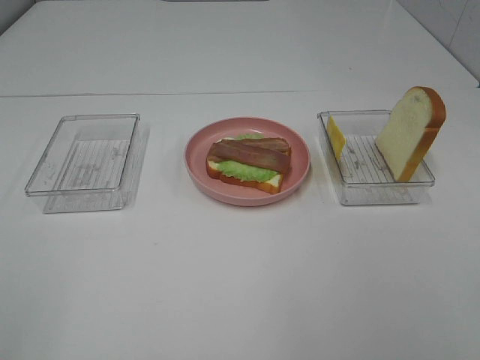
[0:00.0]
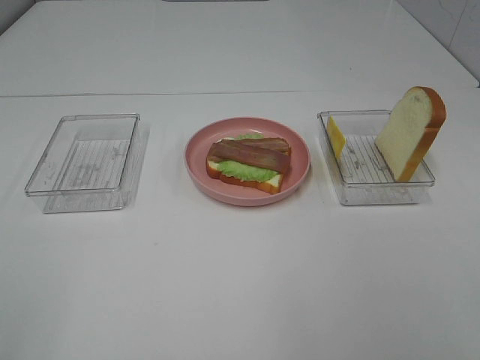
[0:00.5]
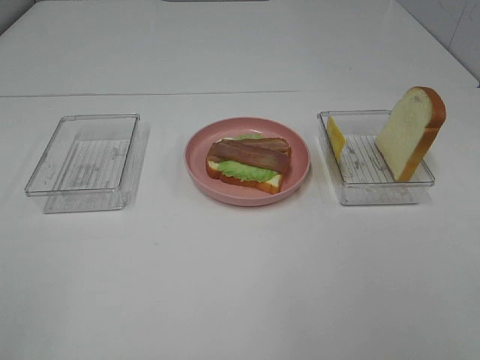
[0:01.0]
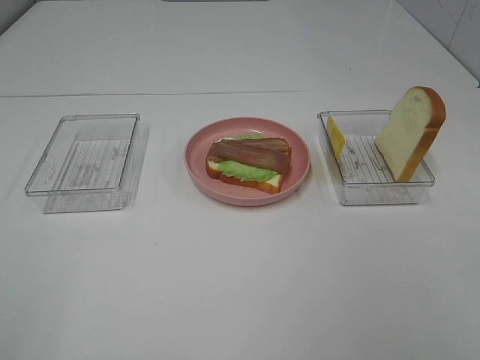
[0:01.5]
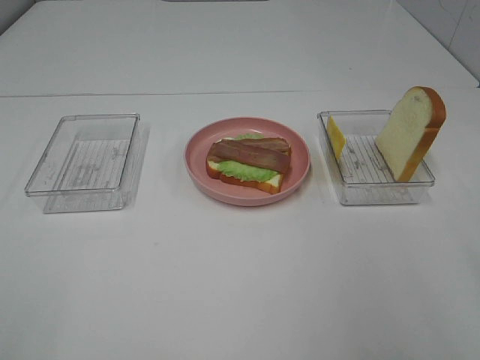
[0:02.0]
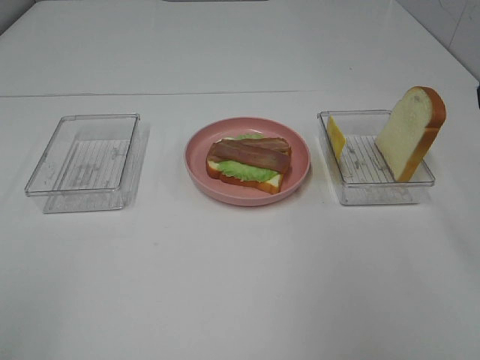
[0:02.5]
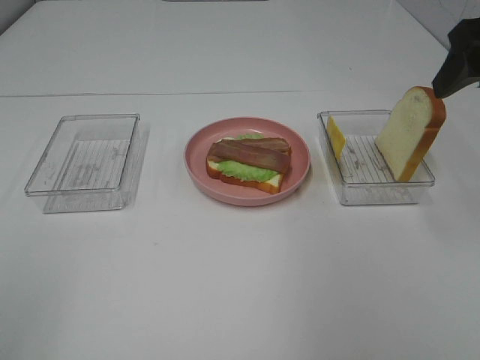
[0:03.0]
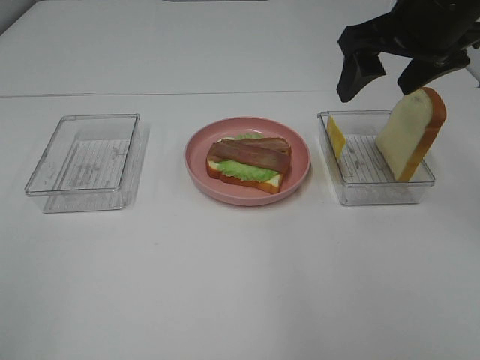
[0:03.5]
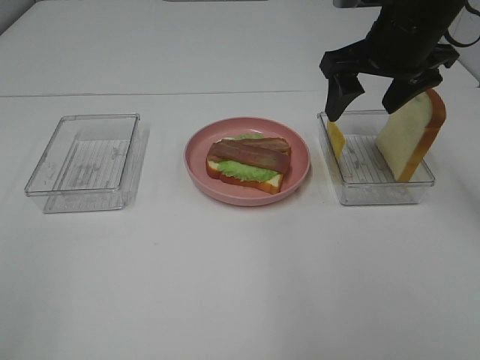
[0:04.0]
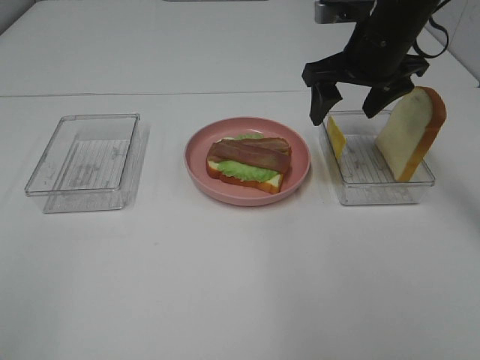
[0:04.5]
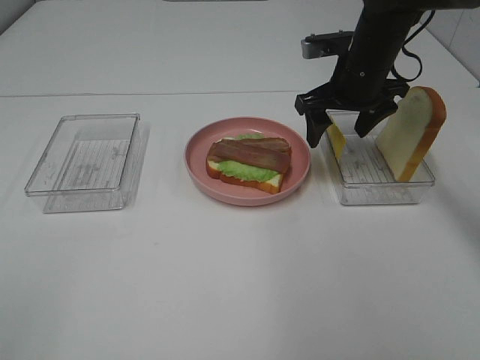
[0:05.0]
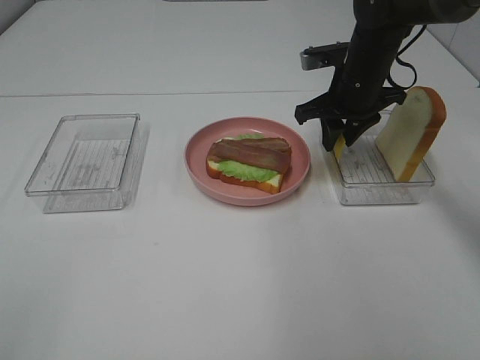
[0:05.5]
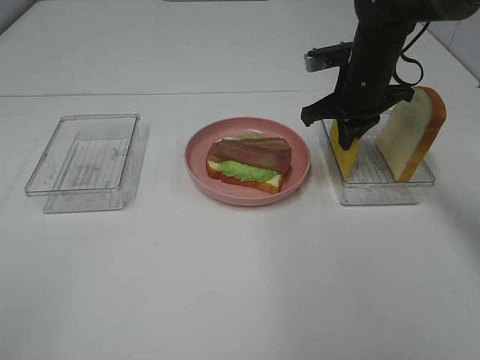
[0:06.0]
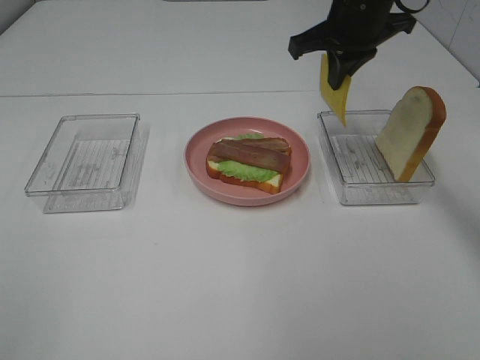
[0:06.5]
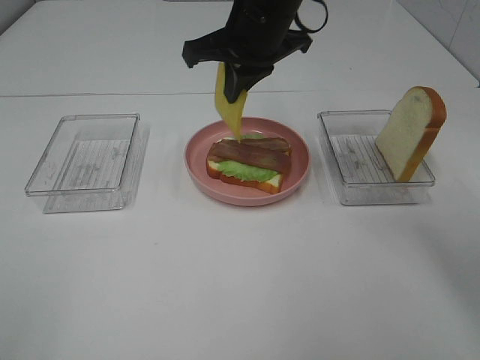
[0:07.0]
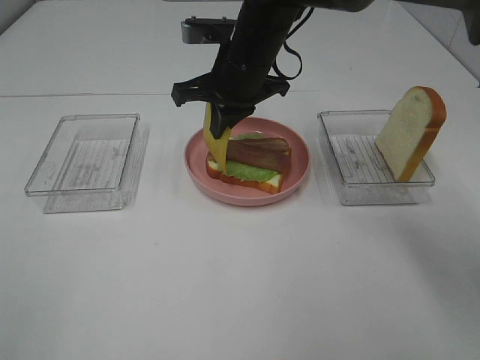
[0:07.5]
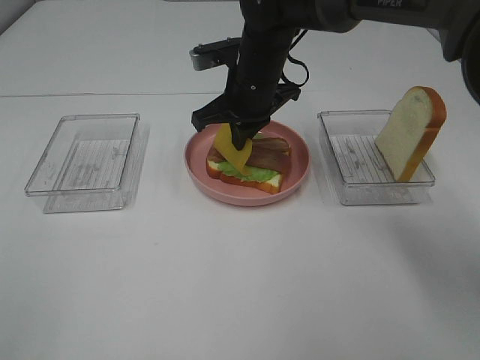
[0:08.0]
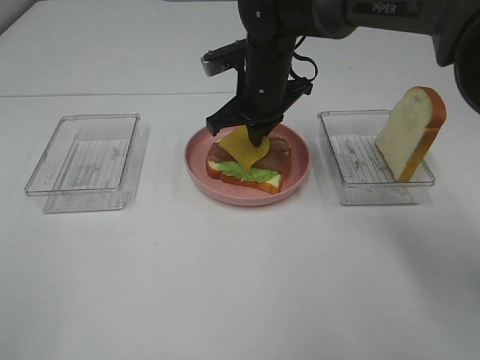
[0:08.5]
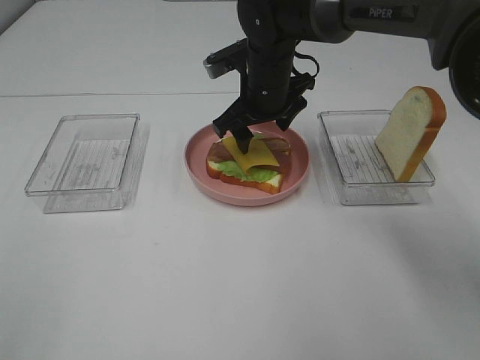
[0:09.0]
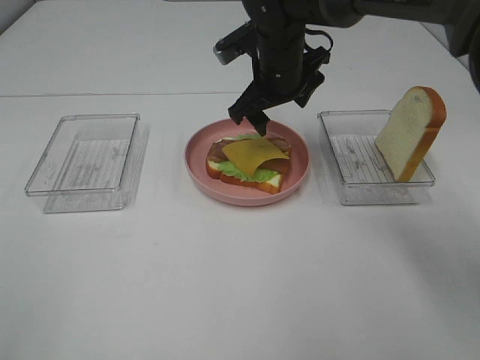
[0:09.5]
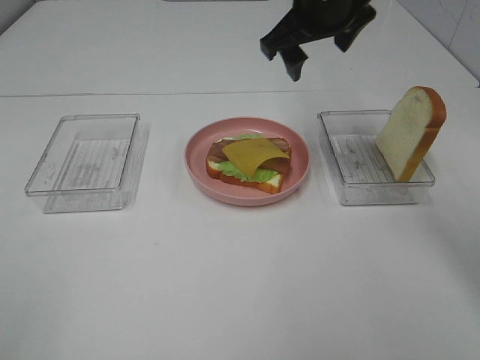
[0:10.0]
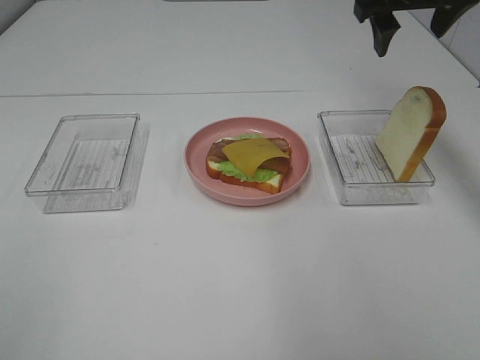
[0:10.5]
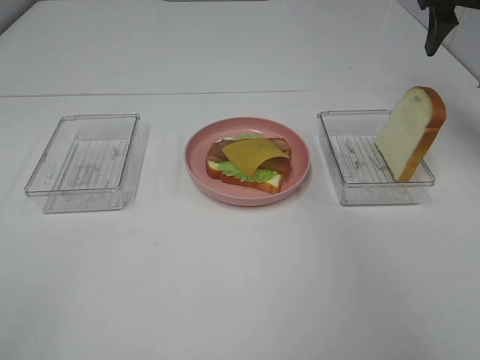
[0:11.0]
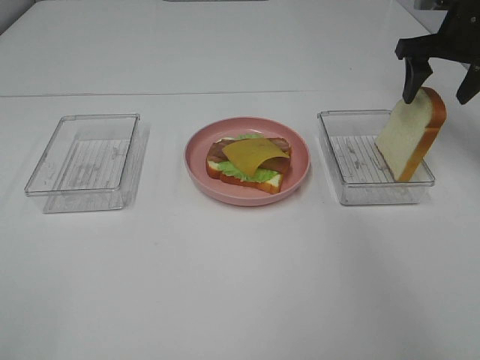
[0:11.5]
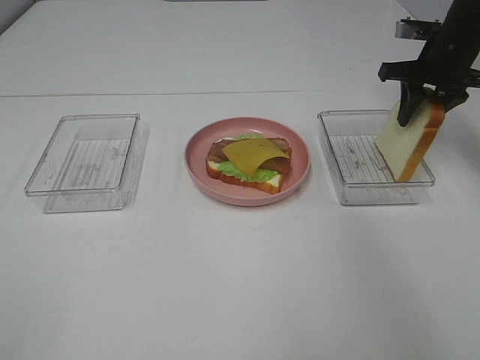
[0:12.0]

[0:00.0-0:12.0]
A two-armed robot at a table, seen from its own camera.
Task of the whole recording: Make sandwiches.
Step, 0:00.0 to 0:06.0: Right hand:grab the cheese slice.
Step, 0:06.5 to 0:09.5: Right hand:place the cheese slice on top of the bacon.
Step, 0:10.0 to 0:12.0: Right hand:grab the bread slice.
0:02.0 to 0:04.0: The right gripper heads forward, covering about 25 cm.
0:04.0 to 0:06.0: The right gripper heads downward and forward, covering some 10 cm, and closes.
0:06.0 to 0:08.0: The right gripper travels to the left by some 15 cm.
0:08.0 to 0:10.0: The right gripper travels upward and to the right by approximately 15 cm, and opens up.
0:10.0 to 0:12.0: The right gripper moves to the right and downward, about 20 cm, and closes up.

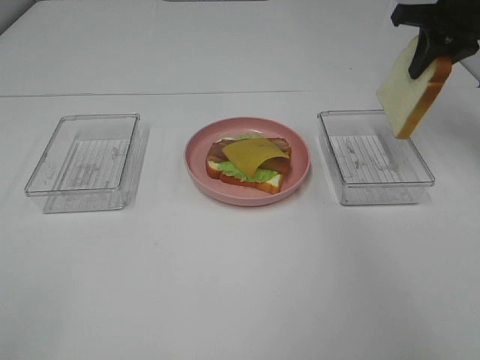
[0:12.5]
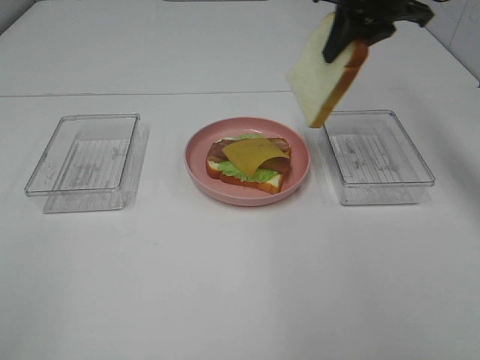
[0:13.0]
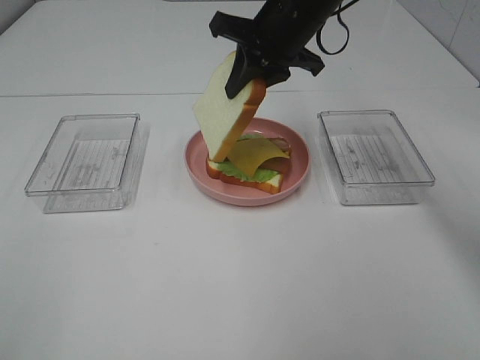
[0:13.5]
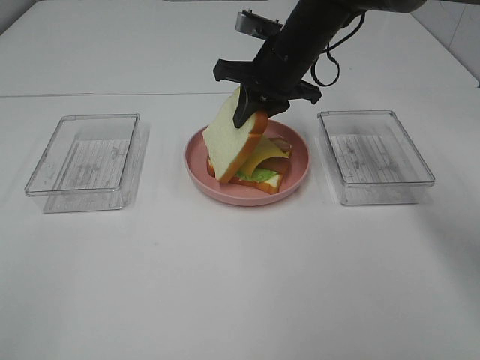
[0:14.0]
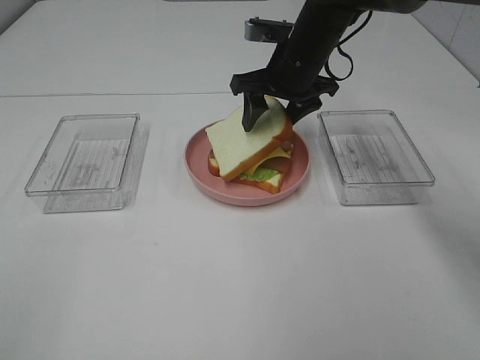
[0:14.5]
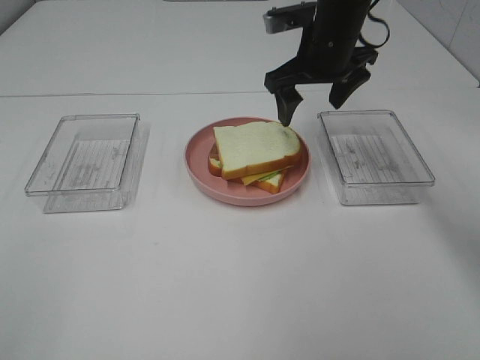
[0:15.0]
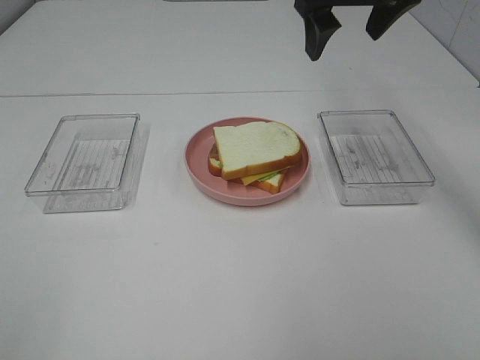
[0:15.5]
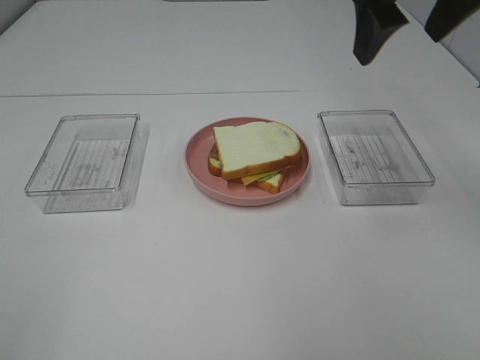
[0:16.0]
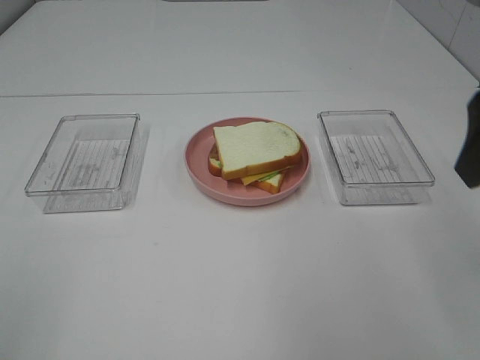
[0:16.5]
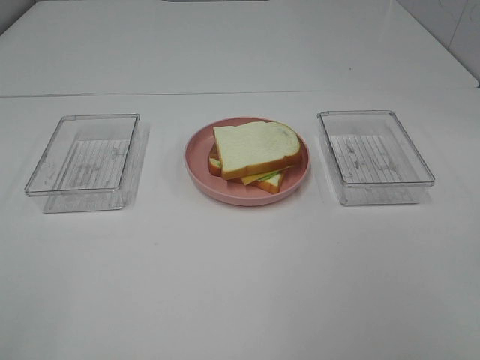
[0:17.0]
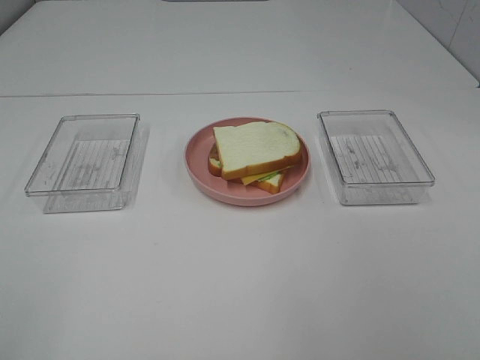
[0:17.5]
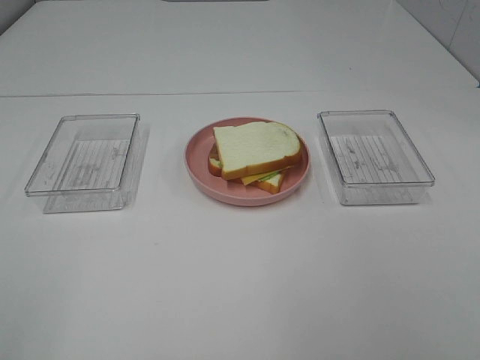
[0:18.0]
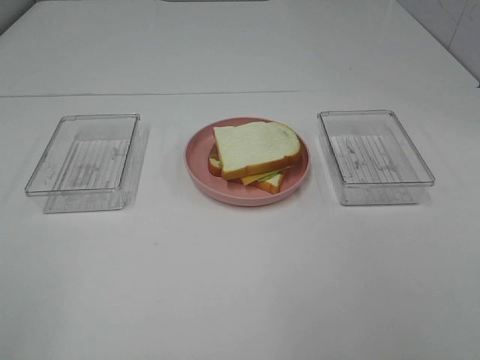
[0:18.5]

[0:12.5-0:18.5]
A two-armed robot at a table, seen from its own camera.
Task of the whole recording: Make sandwiches.
Step, 0:12.5 to 0:15.0: Right hand:place the bread slice on the cheese slice.
0:12.5 to 0:14.5: The right gripper heads to the left and downward, covering roughly 20 cm, and opens up.
0:14.5 to 0:16.5: The right gripper goes approximately 35 cm backward, upward and to the right.
0:16.5 to 0:18.5: The right gripper is displaced backward by approximately 20 cm.

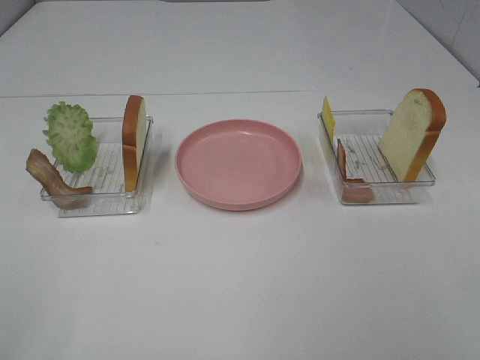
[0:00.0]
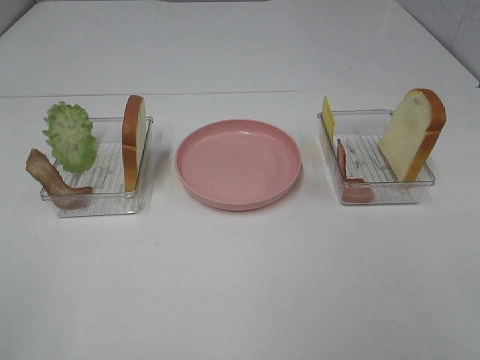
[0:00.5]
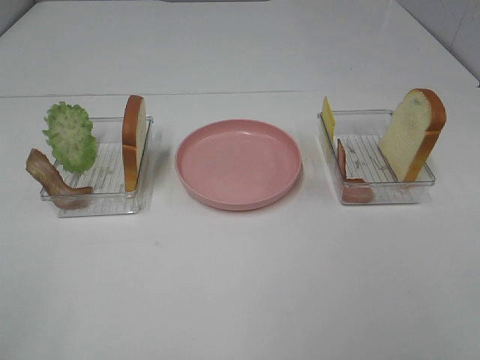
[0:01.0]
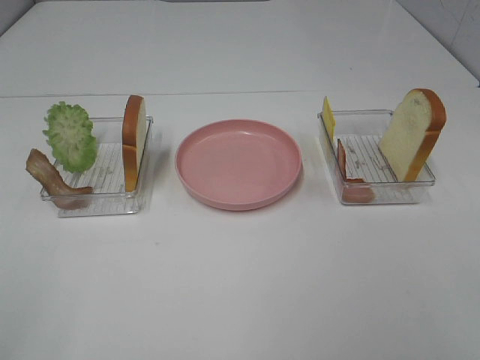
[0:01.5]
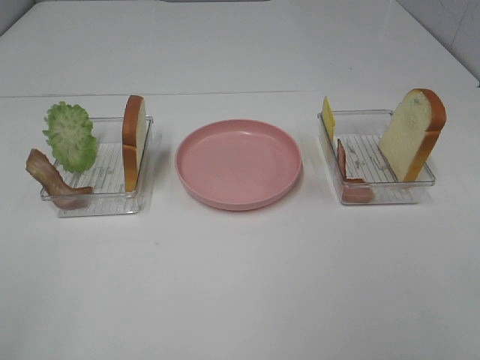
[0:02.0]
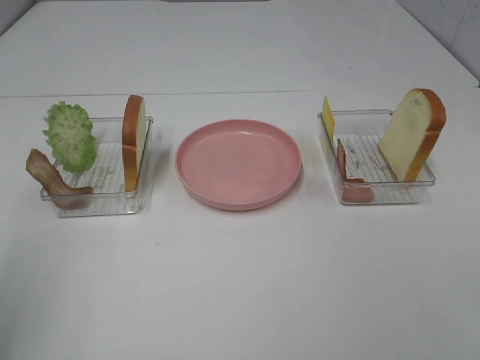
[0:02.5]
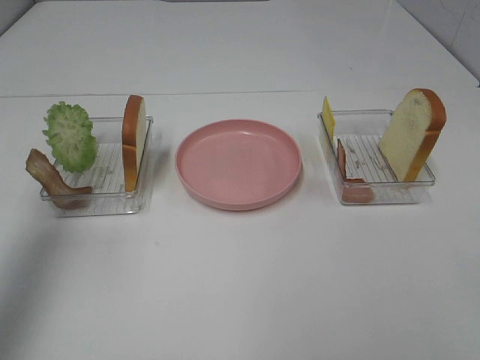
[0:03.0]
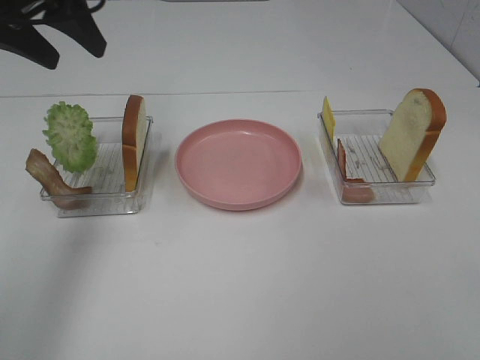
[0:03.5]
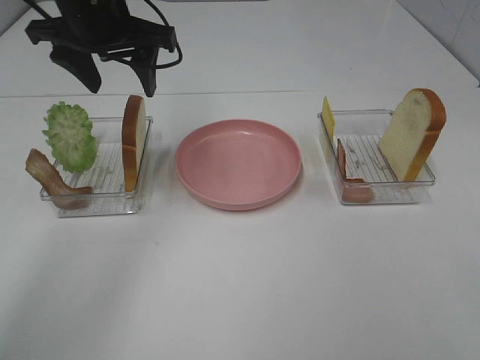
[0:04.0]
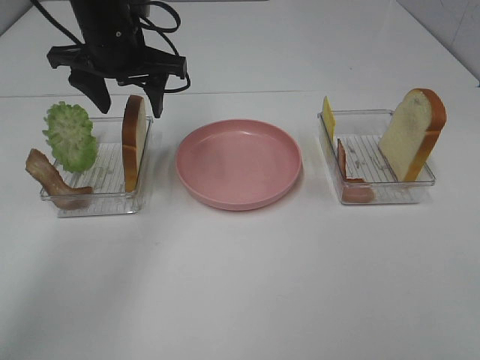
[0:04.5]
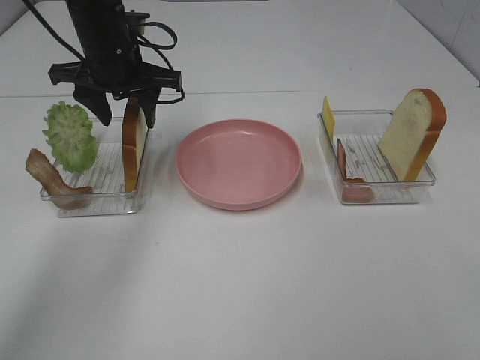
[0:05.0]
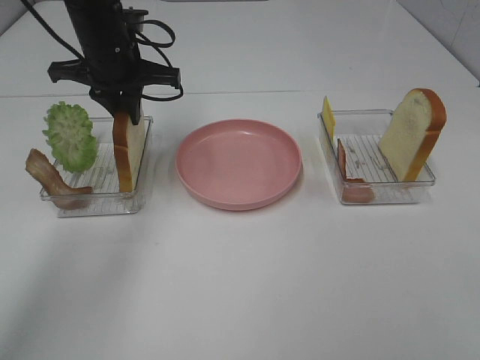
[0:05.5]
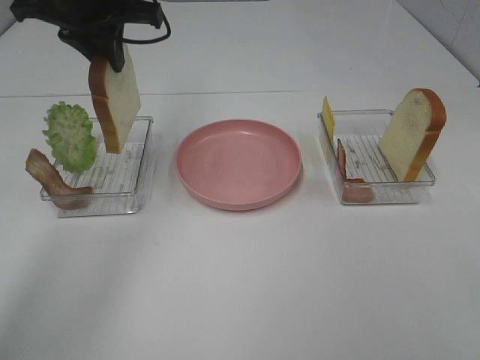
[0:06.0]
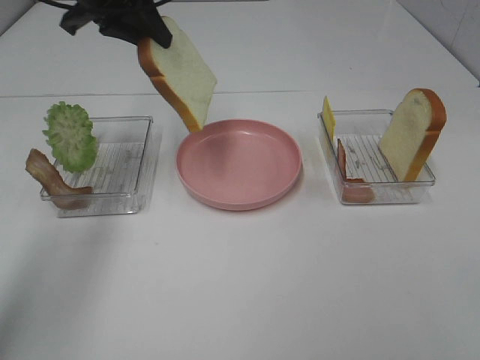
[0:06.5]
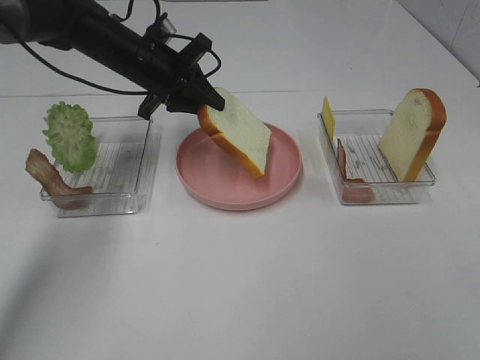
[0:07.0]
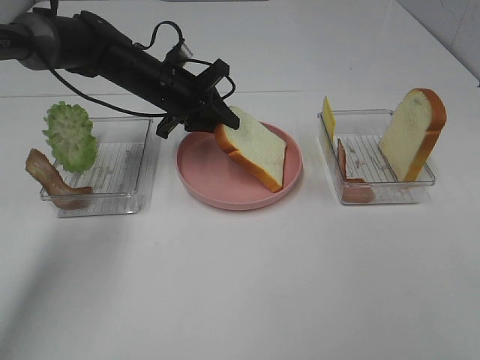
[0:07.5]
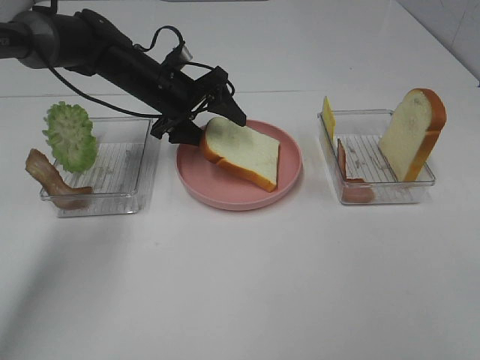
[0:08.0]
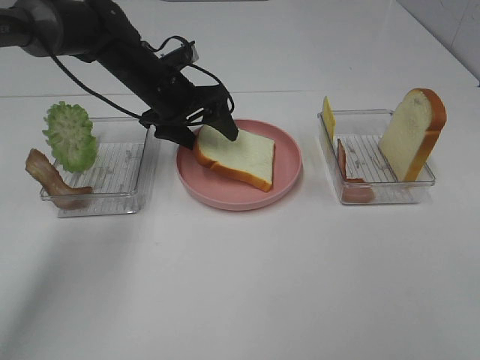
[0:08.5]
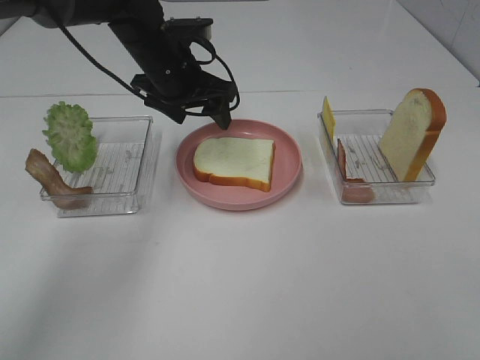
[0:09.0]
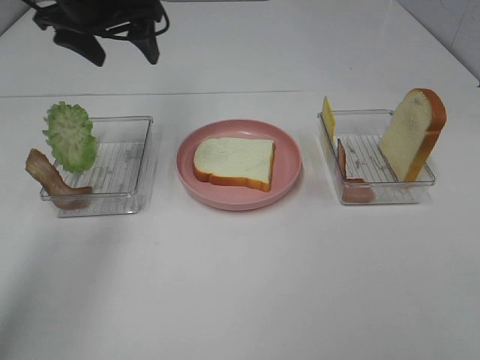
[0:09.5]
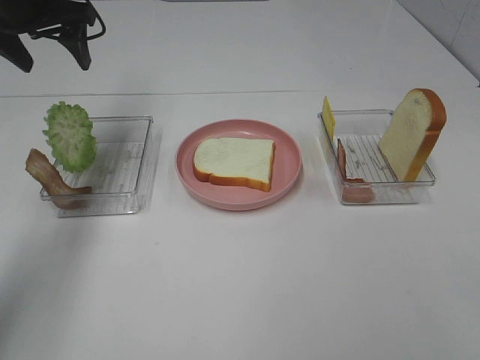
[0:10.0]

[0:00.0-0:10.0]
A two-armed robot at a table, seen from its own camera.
Task of the whole recording: Make sandwiches.
Step, 0:00.0 to 0:05.0: Left hand:grab the bread slice.
Step, 0:05.5 to 0:08.5: Left hand:place the bread slice on the plate.
0:02.0 to 0:04.0: The left gripper goes some 40 cm forward.
0:04.0 to 0:06.0: The left gripper travels downward and back again, some 5 cm each way, and closes its fingers.
0:06.0 to 0:08.0: The left gripper goes about 15 cm downward, and opens.
0:08.0 to 0:10.0: The left gripper is displaced upward and to the left by approximately 20 cm.
